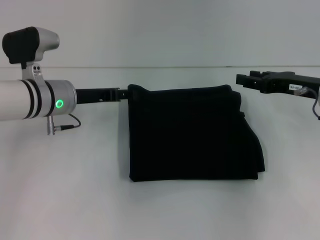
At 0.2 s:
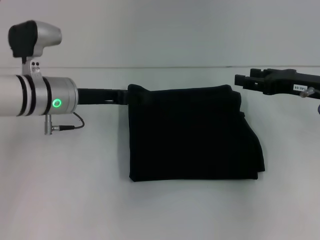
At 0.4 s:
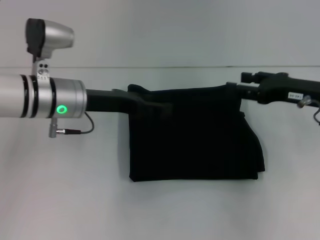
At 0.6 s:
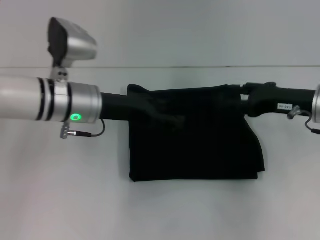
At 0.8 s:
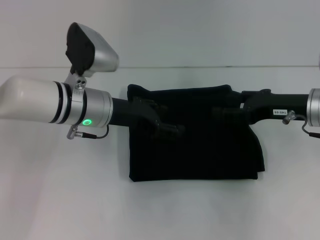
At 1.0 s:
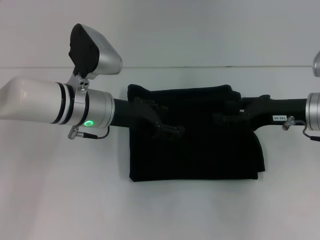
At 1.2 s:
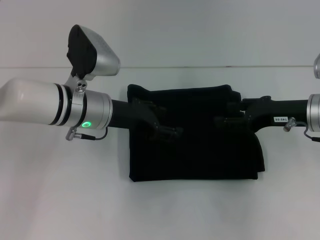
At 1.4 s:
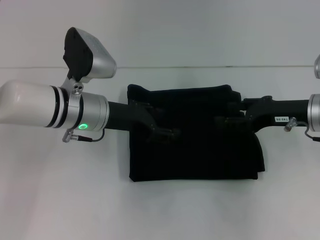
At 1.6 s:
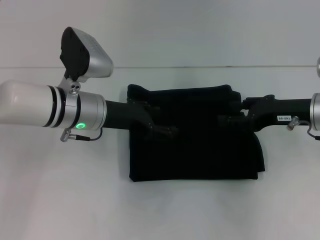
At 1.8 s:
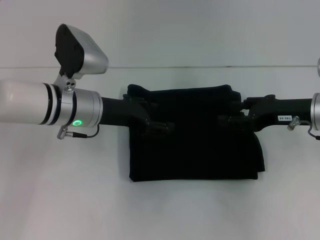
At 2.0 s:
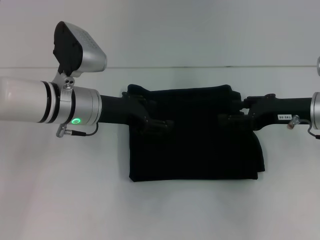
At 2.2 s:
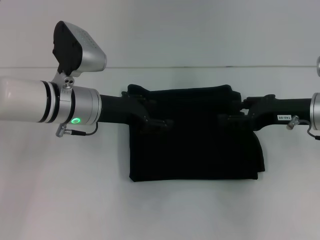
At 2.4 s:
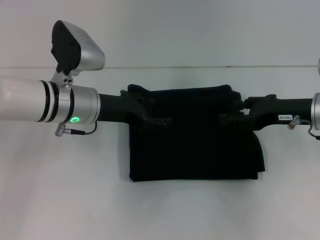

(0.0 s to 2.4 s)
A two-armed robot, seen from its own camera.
0.0 s - 1.2 s: The left gripper moves to the right, about 5 cm.
1.2 s - 2.4 s: There are only small adjustments of the grippers.

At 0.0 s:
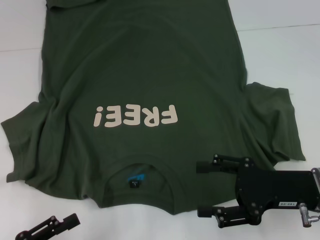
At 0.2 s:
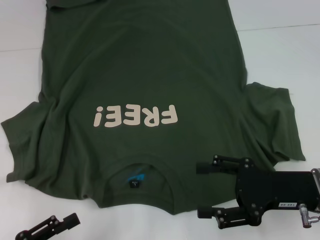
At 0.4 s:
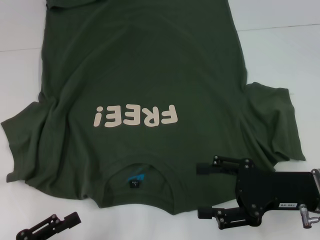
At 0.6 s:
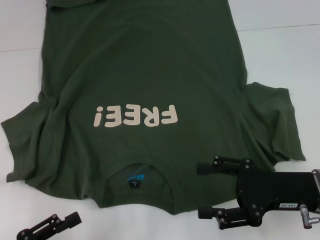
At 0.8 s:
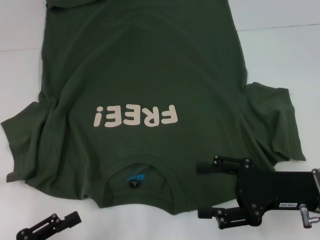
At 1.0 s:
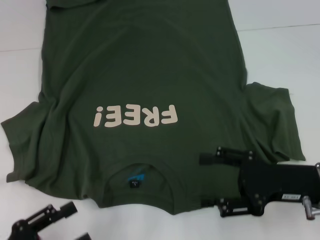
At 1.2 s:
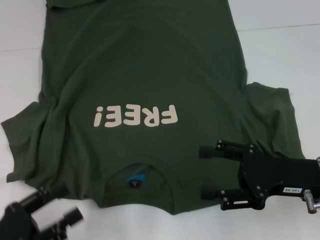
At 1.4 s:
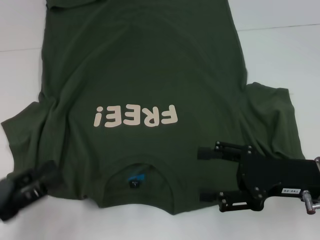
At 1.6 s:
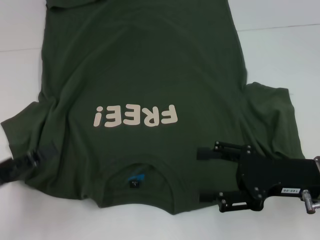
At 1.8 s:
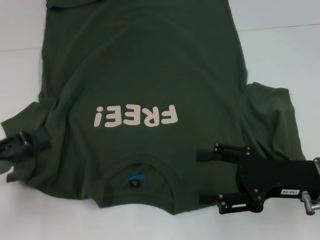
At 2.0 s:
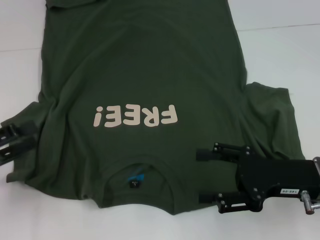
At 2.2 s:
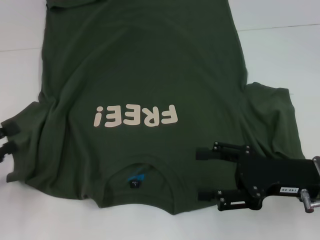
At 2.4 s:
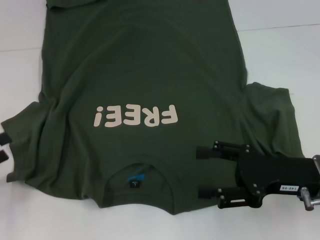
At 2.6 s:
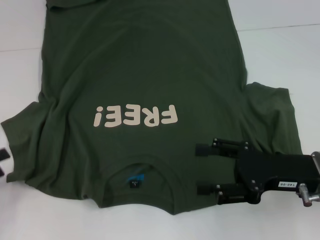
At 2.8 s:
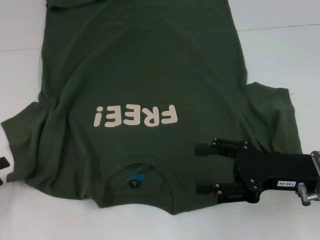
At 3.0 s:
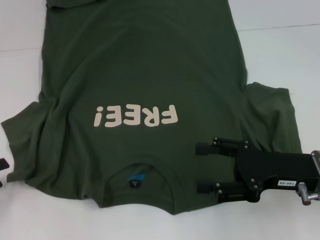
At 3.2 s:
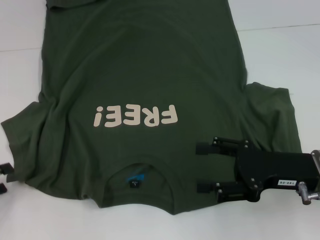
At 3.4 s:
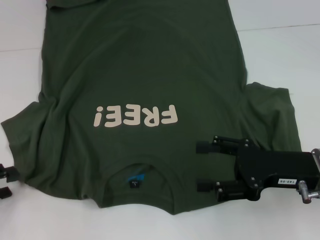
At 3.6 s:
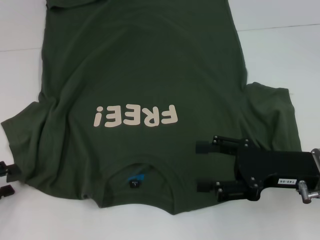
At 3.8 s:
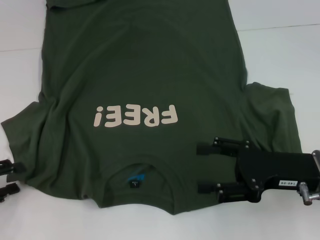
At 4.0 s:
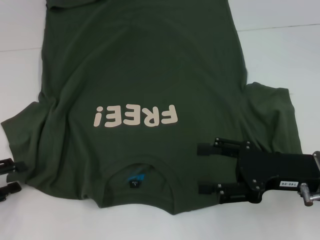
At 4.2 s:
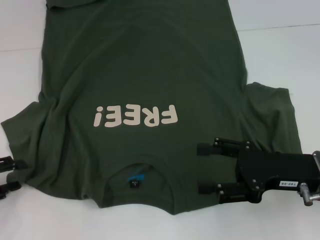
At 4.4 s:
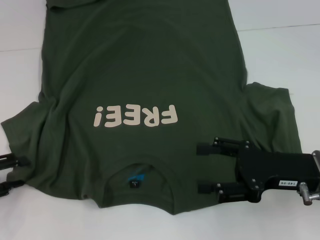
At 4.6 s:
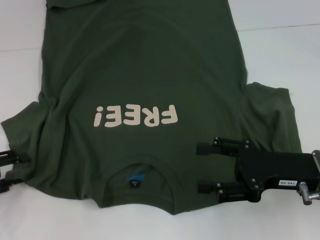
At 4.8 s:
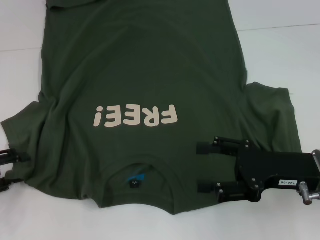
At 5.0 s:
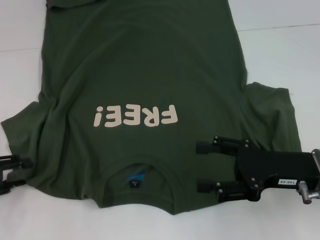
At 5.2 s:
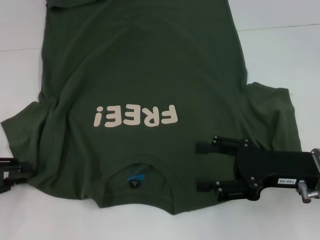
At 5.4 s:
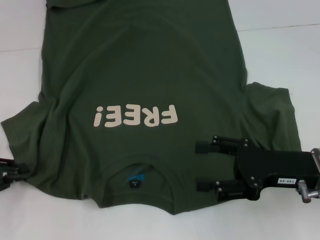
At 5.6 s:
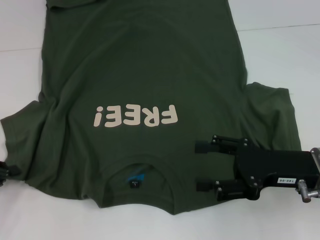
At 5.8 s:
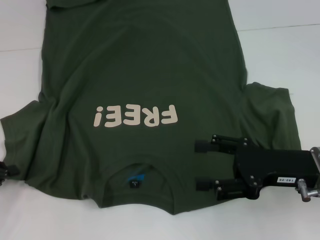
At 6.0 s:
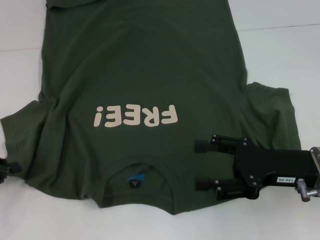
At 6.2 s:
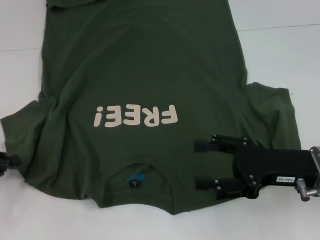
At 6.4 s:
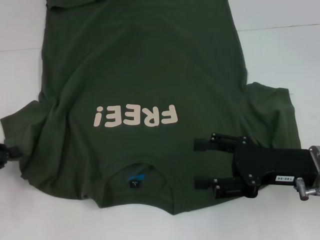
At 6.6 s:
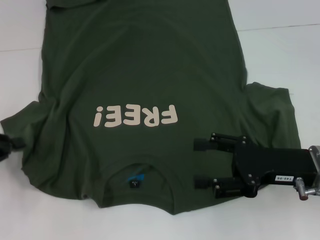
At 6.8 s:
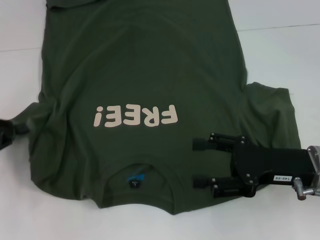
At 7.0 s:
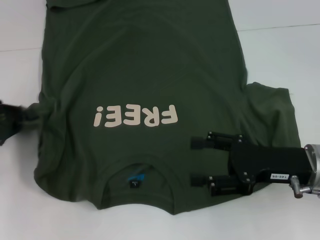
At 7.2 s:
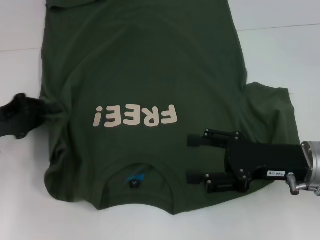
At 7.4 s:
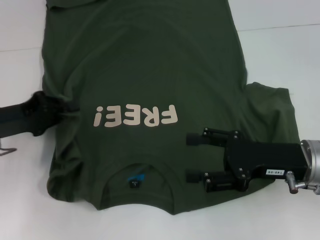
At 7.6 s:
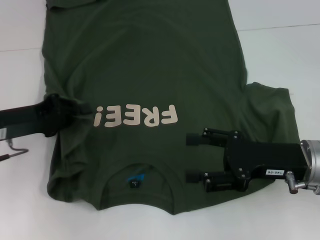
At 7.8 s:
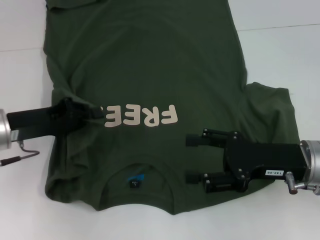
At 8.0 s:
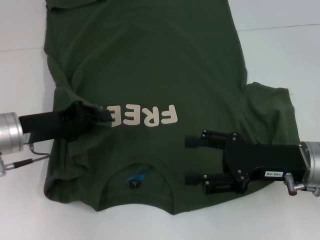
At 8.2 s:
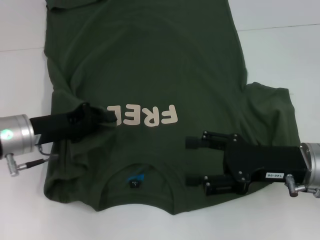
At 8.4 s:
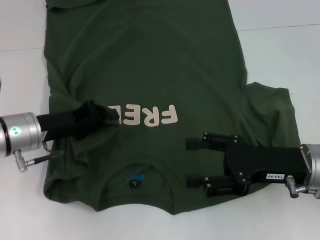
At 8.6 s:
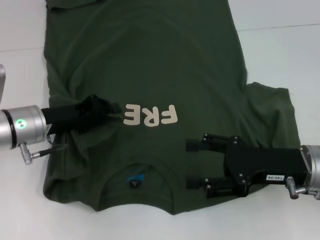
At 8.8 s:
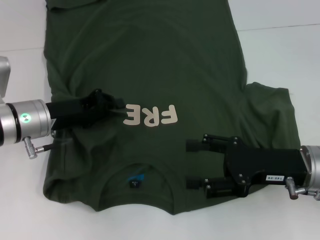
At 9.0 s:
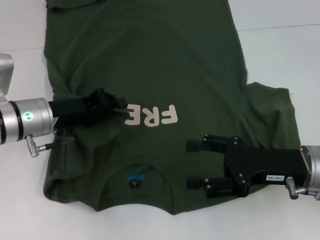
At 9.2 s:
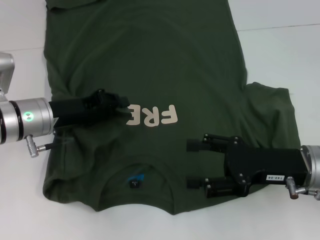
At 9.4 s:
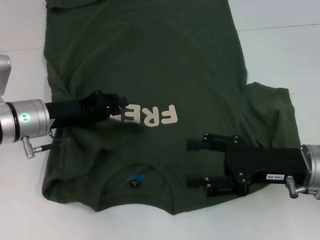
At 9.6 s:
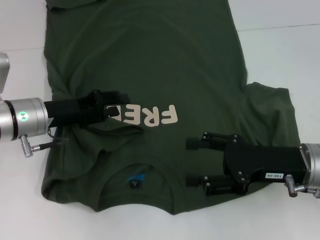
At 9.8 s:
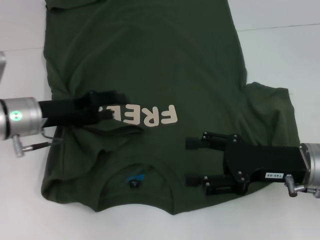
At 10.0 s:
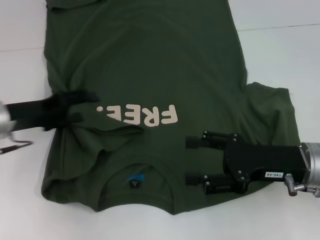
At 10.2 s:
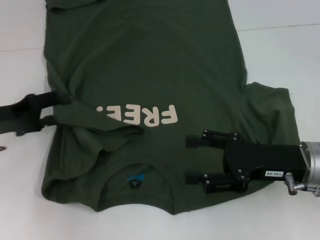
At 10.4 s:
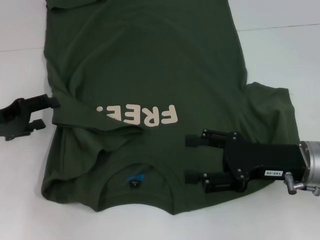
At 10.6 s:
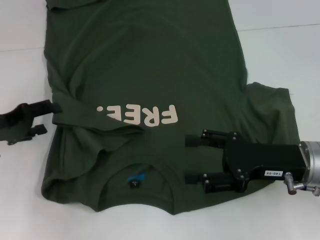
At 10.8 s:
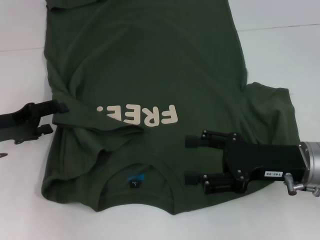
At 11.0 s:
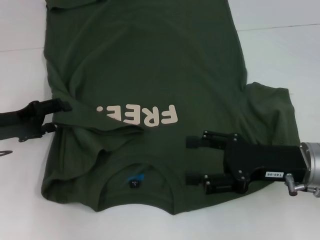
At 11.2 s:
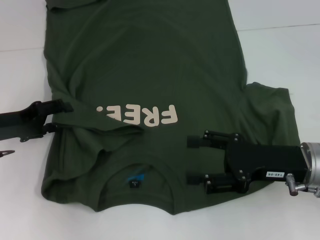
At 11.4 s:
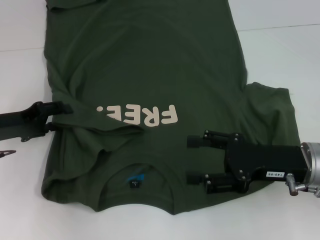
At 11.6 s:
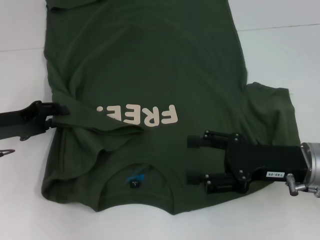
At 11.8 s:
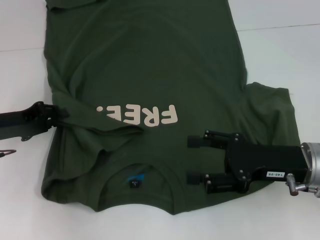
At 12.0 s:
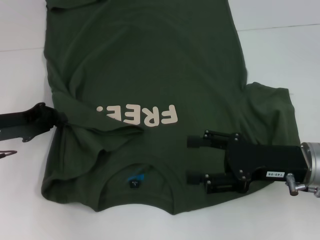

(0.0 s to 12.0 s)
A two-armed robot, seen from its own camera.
0.0 s - 1.6 s: The left gripper is displaced forward and upward by some 10 cm.
1.6 s - 3.0 s: The left gripper travels to the left by approximately 5 cm.
3.0 s - 4.4 s: The grippers stay close to where they were, moving slightly.
4.4 s - 6.0 s: The left gripper closes up.
6.0 s - 7.6 s: The left gripper is displaced to the right and forward by approximately 10 cm.
7.6 s - 9.0 s: The left gripper shifts roughly 5 cm to the right.
9.0 s - 10.4 s: The left gripper shifts roughly 10 cm to the left, and opens its fingers.
10.4 s - 12.0 s: The left gripper closes its fingers.

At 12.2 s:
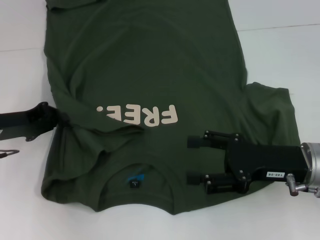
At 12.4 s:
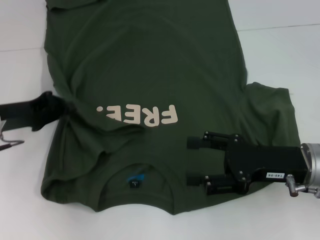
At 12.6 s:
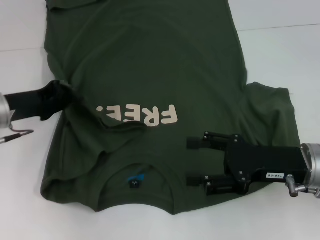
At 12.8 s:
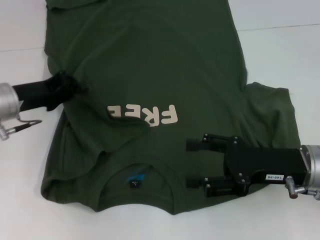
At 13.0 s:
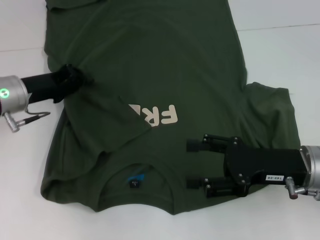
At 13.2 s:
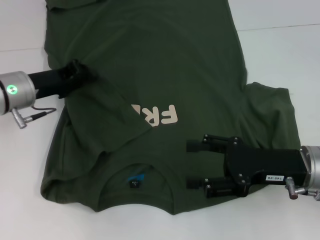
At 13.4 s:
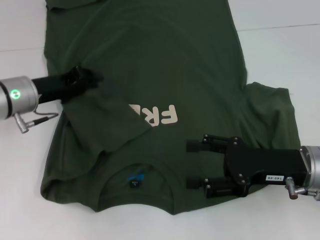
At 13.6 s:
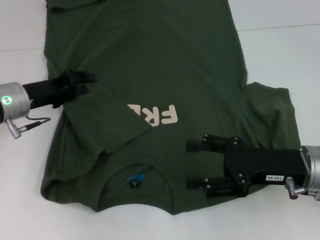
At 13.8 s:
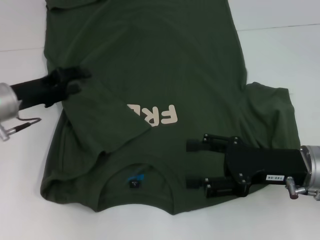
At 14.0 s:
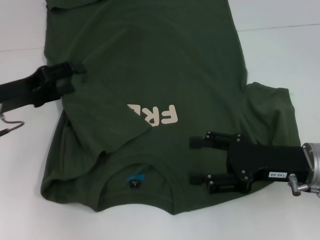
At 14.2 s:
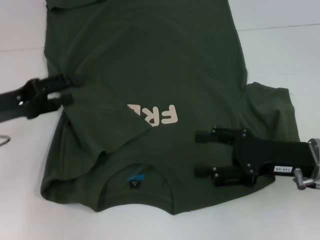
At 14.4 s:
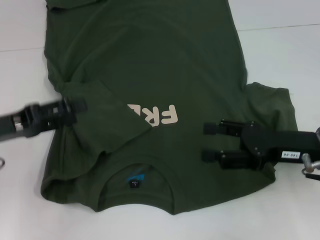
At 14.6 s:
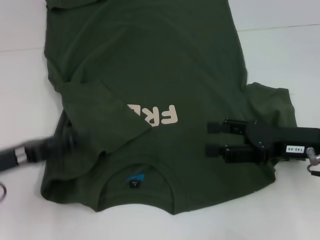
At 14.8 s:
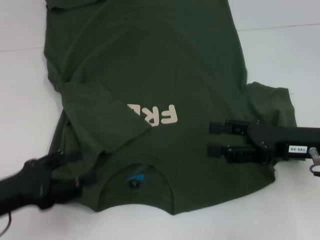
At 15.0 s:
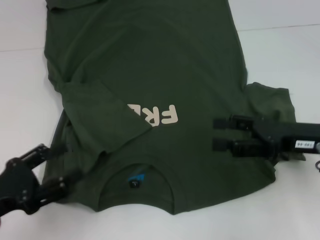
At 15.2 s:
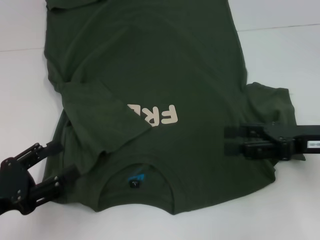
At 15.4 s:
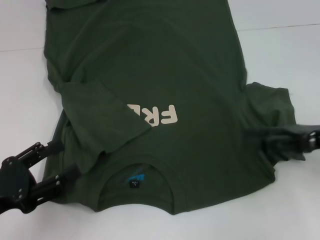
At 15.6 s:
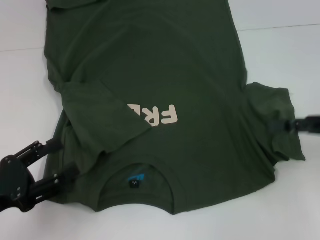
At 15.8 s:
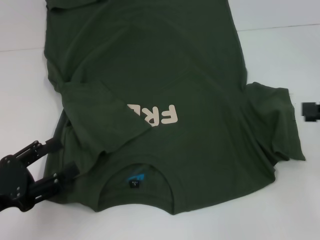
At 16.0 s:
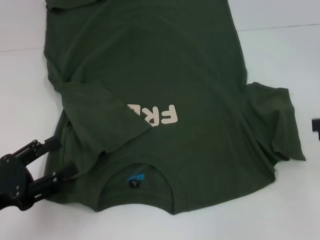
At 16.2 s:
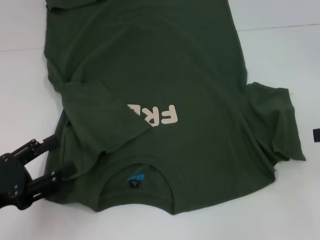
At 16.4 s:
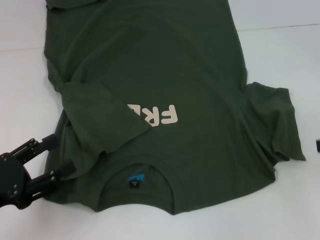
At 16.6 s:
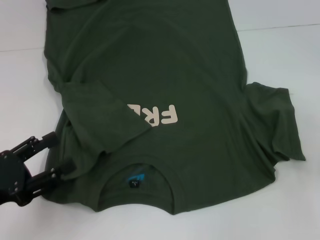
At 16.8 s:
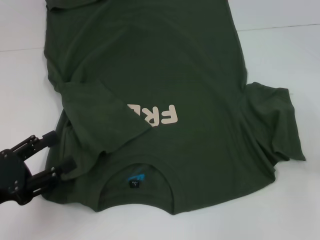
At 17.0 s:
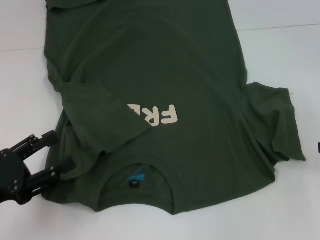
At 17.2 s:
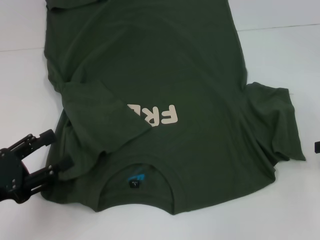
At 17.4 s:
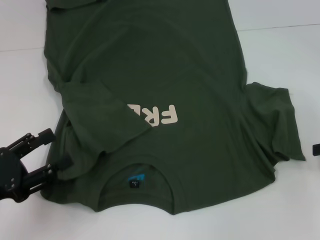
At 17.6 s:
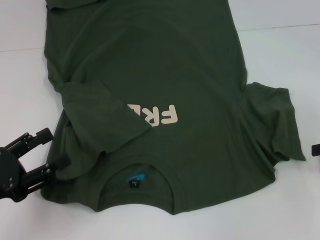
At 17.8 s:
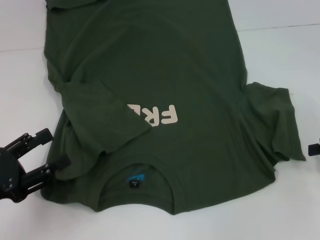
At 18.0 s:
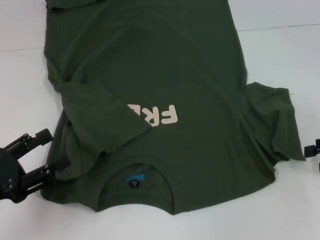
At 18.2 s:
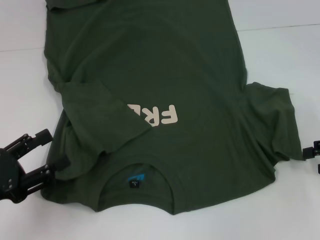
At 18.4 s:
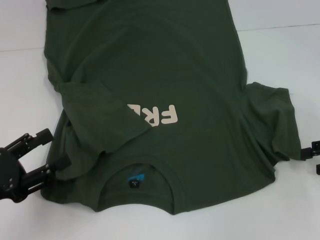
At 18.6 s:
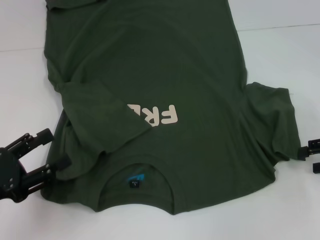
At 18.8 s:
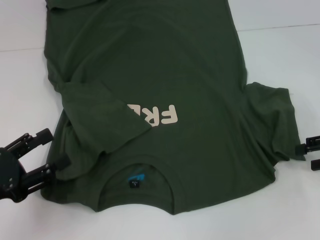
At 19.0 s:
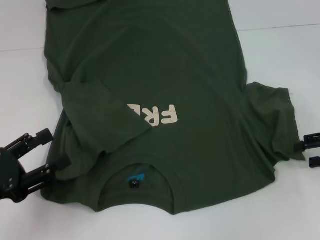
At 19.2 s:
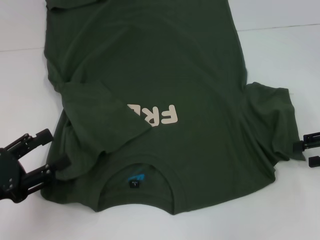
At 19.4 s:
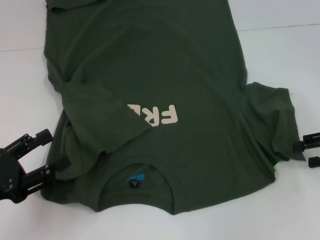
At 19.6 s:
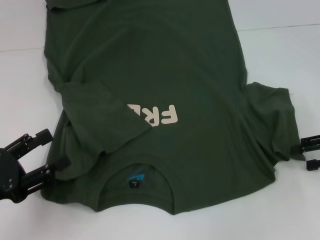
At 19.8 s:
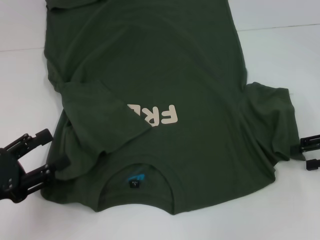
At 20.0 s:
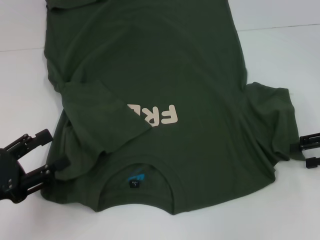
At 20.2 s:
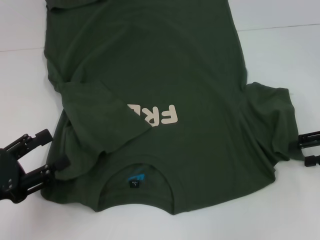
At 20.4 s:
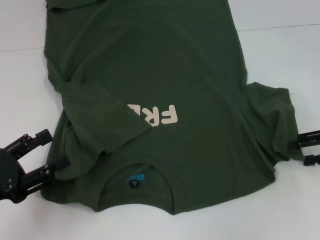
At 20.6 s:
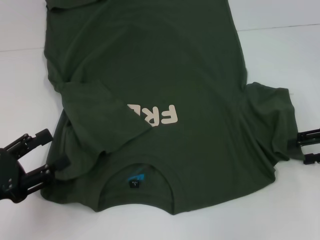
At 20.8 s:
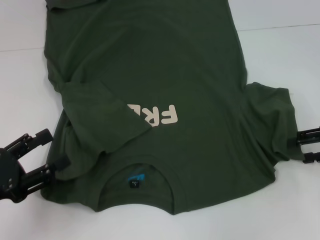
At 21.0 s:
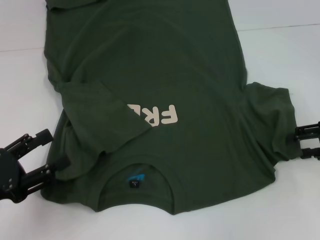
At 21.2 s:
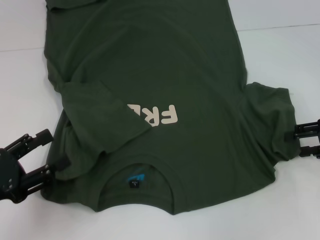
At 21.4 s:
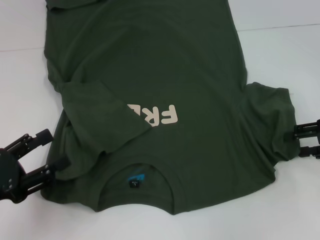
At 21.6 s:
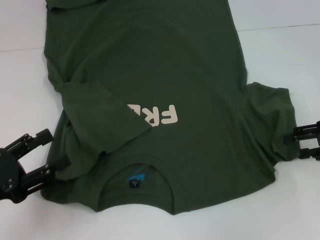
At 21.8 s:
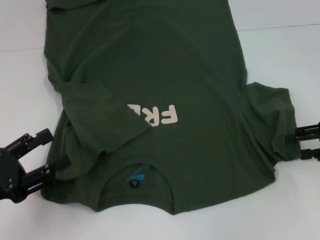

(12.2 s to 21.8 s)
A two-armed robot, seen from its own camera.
Step, 12.2 s - 14.2 s: Fold the bottom left sleeve with your left hand.
13.8 s - 15.4 s: The left gripper goes about 20 cm backward, and opens. The right gripper is displaced to the right by approximately 10 cm.
15.4 s - 17.0 s: The right gripper travels to the right by approximately 10 cm.
17.0 s - 20.2 s: The grippers stay close to where they were, moving slightly.
20.2 s - 21.8 s: Neither gripper changes place.
